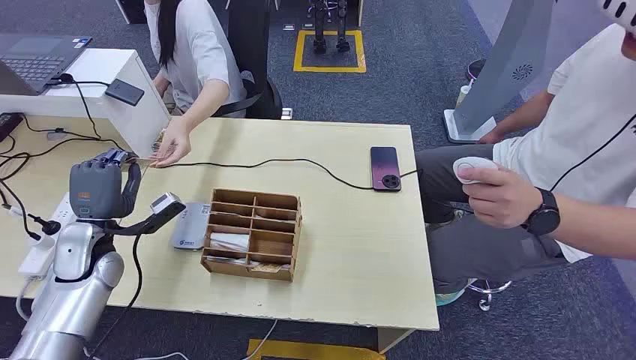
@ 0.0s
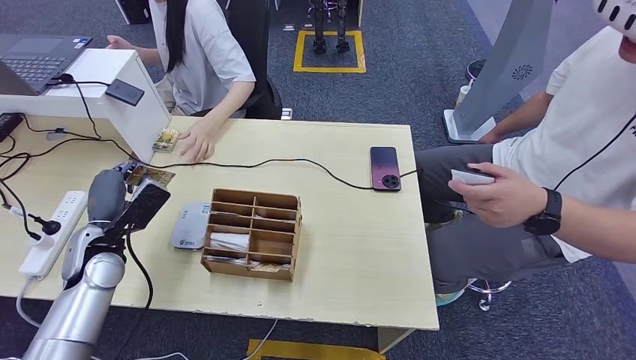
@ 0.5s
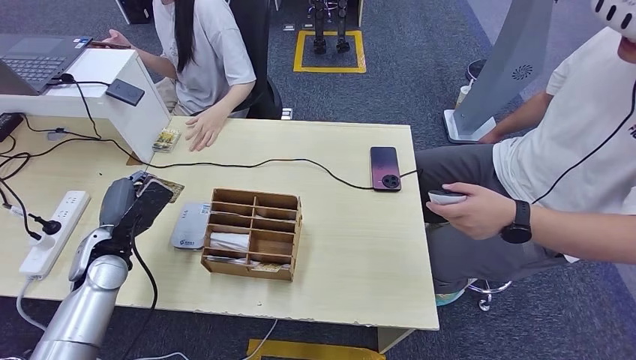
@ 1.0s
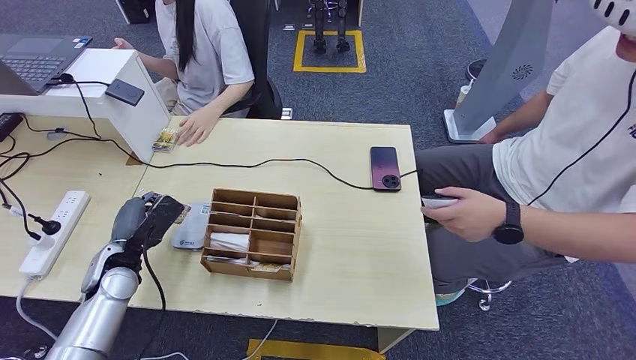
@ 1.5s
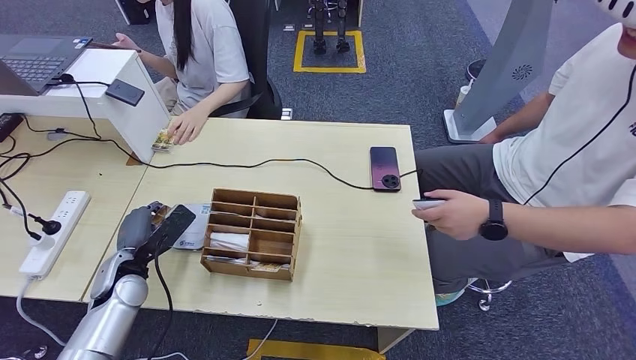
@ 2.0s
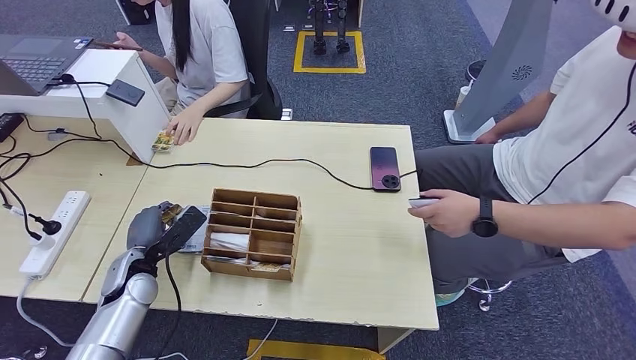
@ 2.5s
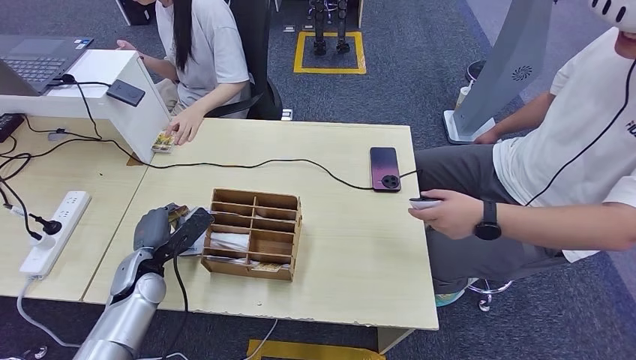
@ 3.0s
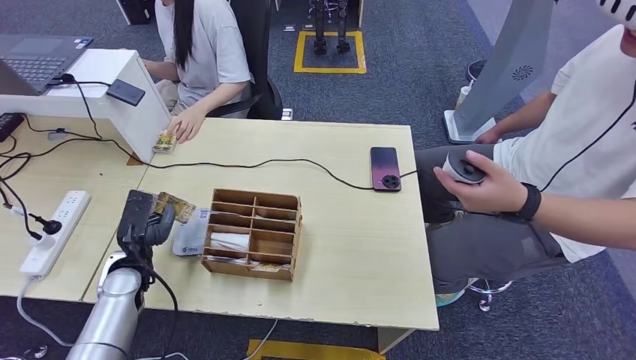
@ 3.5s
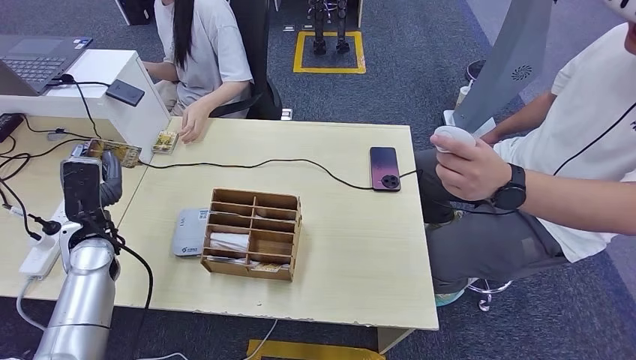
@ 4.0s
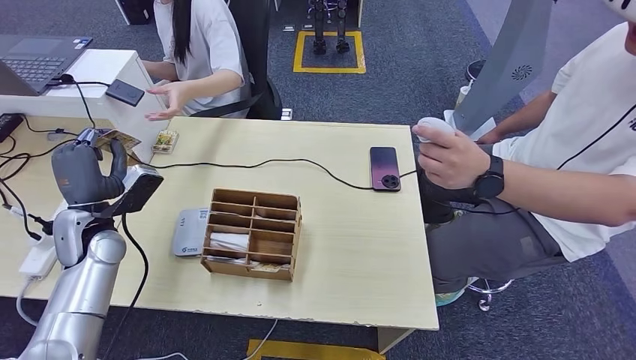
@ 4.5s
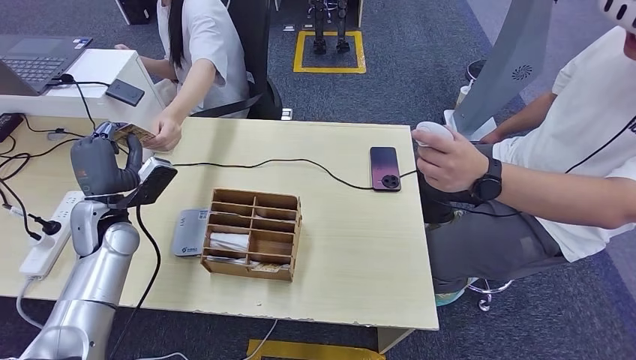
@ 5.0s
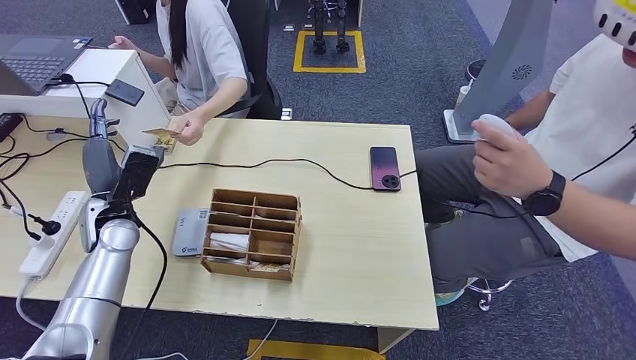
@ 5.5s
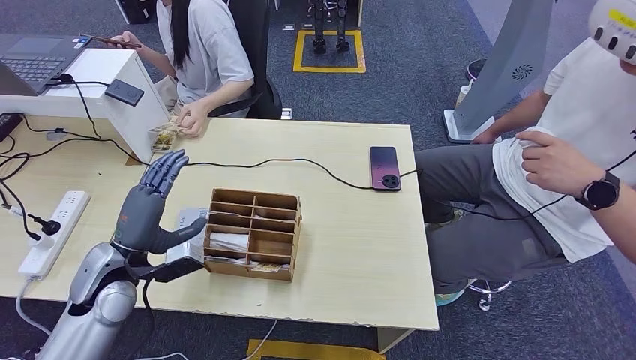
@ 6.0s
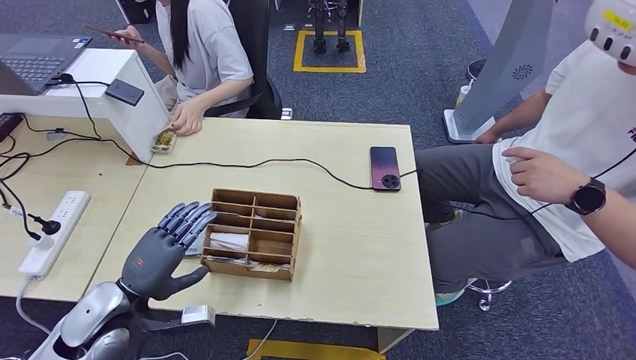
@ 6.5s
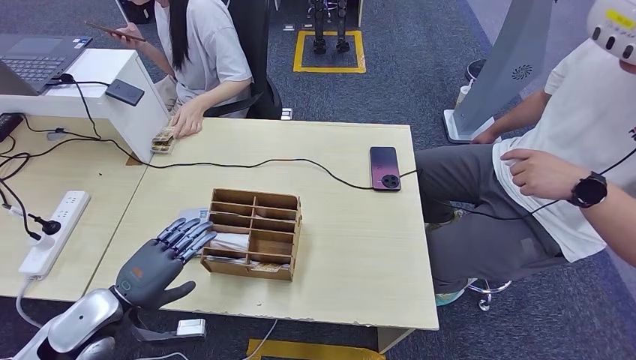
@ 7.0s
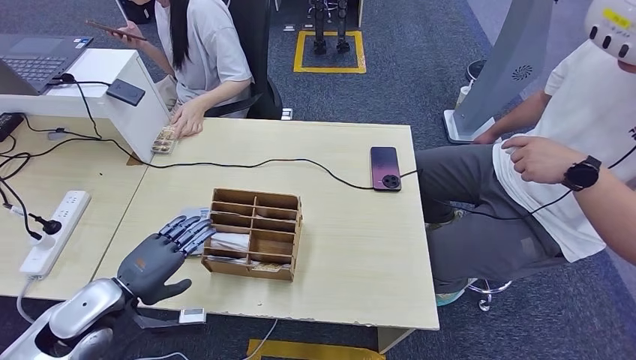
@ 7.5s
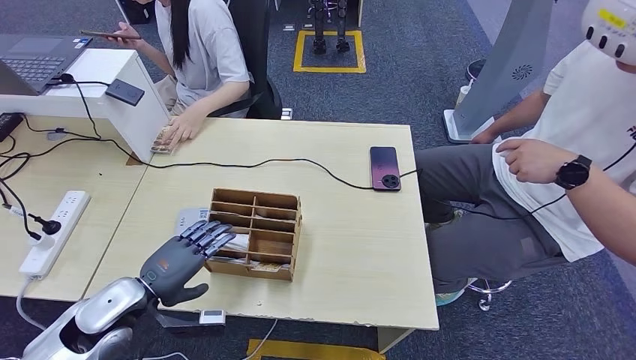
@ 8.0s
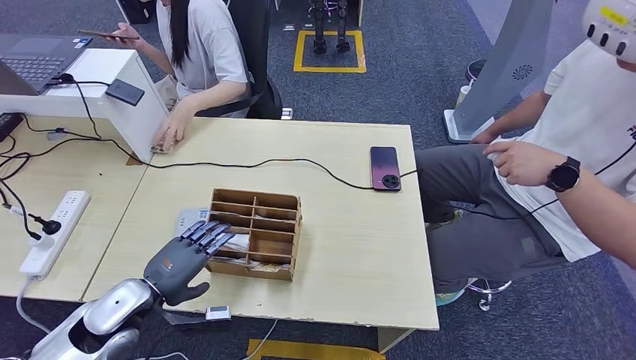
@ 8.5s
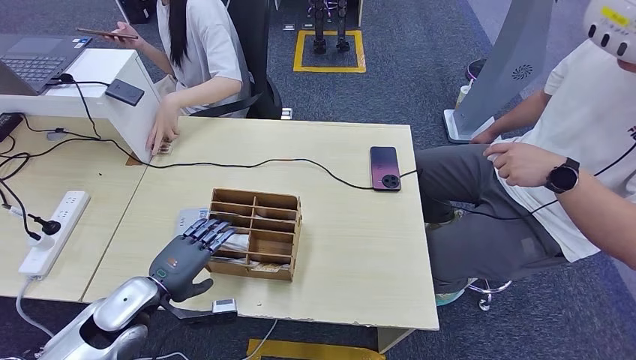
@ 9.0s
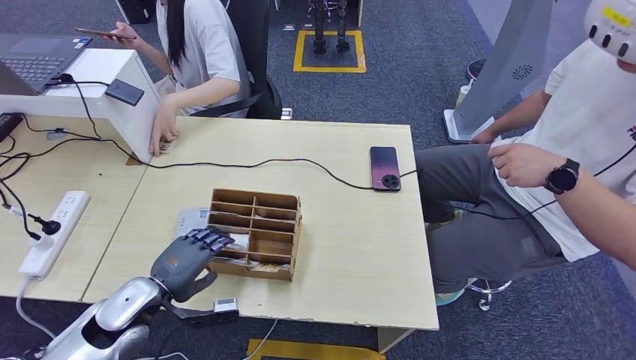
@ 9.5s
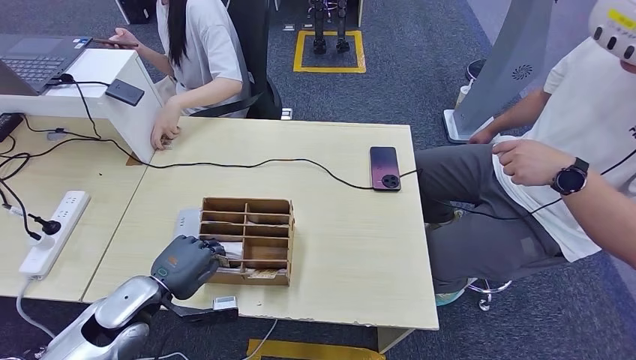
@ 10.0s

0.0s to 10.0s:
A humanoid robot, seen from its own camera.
Step, 0.0s to 1.0s: Take the ID card from the person's hand.
Step, 1.5s to 3.5s: Place the ID card on the card reader.
Step, 4.0s to 5.5s: Hand the ID card to the person.
2.0s to 4.0s: The left hand travels upward by some 10 cm.
4.0s to 6.0s: The left hand travels to the right and backward by approximately 10 cm.
6.0s to 8.0s: The left hand shifts about 5 cm backward.
8.0s to 10.0s: There are only small adjustments of the hands.

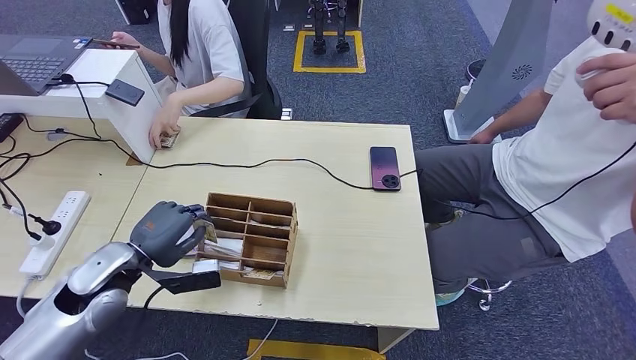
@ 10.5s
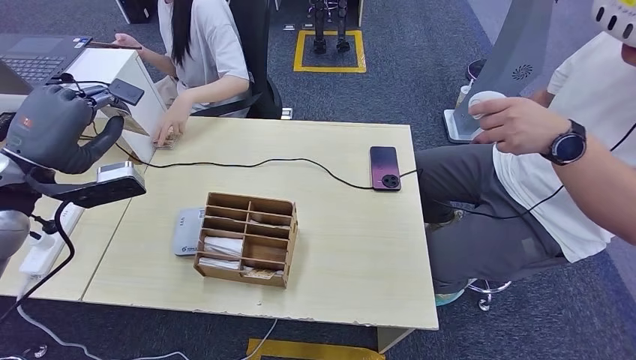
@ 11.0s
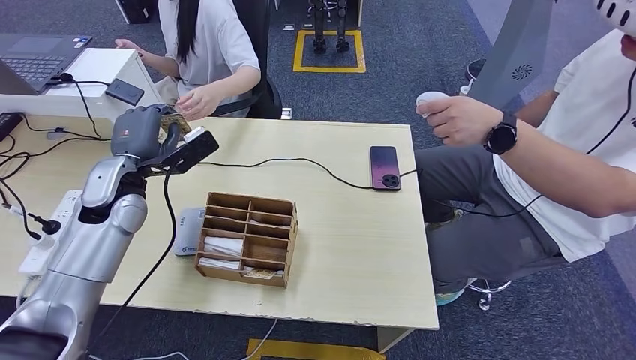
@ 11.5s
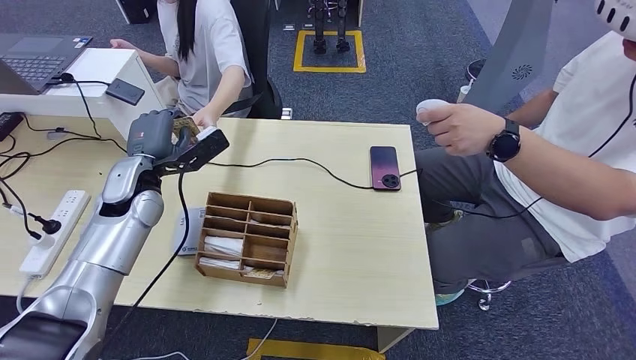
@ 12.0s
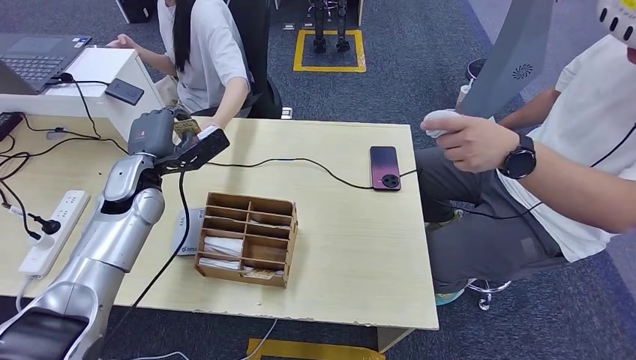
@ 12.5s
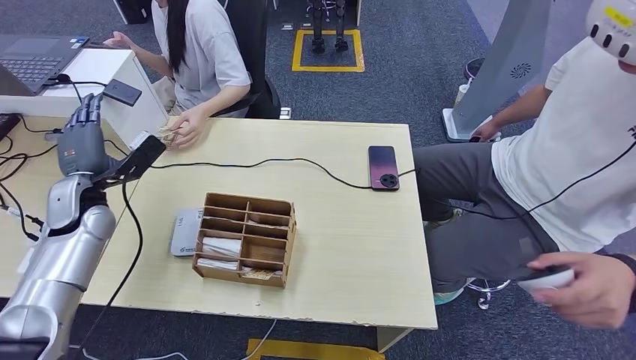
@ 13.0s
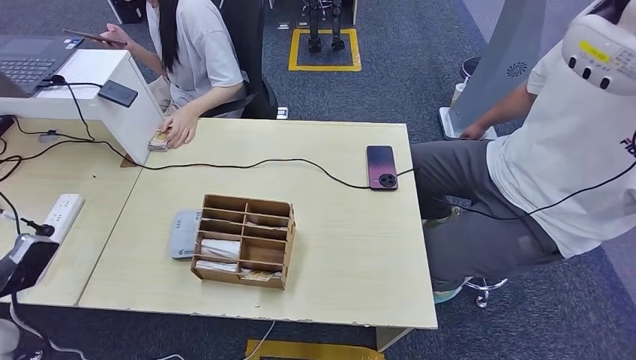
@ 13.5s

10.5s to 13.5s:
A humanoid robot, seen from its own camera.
Step, 11.0s to 13.0s: Hand the room key to the person.
